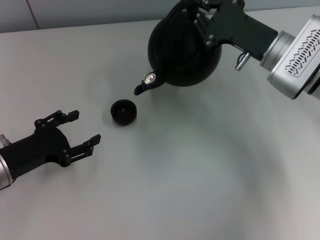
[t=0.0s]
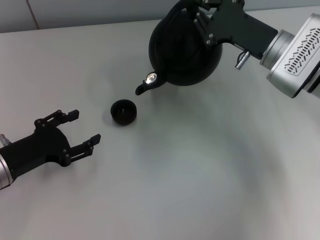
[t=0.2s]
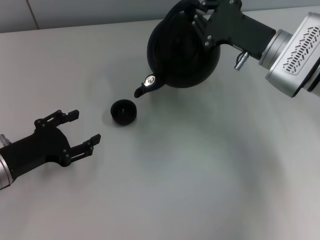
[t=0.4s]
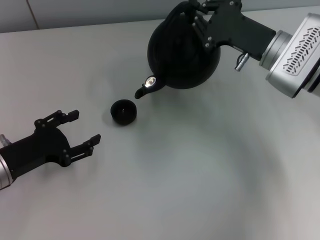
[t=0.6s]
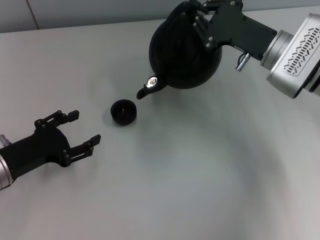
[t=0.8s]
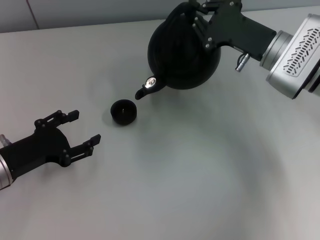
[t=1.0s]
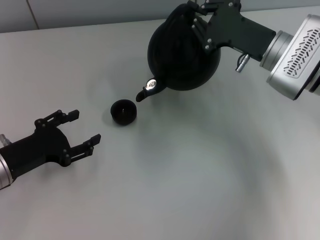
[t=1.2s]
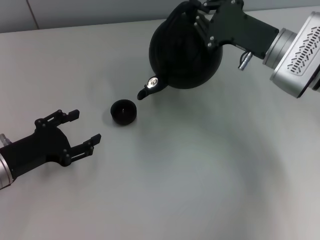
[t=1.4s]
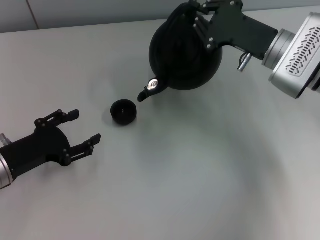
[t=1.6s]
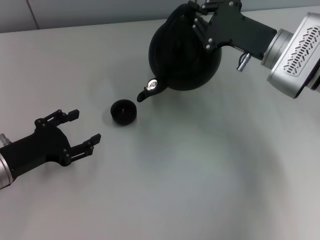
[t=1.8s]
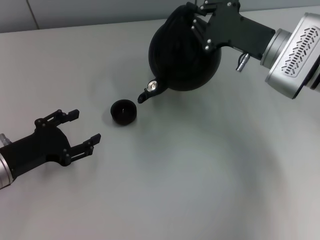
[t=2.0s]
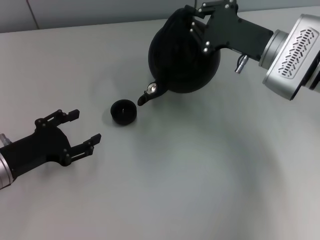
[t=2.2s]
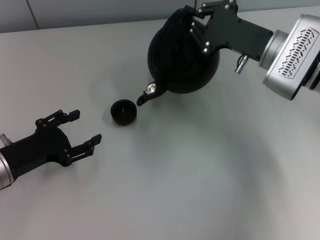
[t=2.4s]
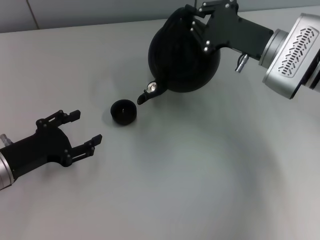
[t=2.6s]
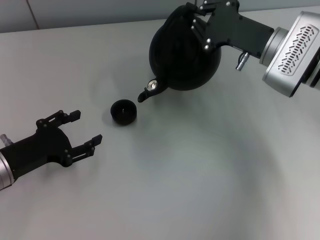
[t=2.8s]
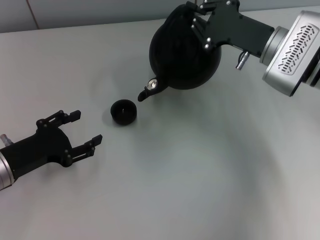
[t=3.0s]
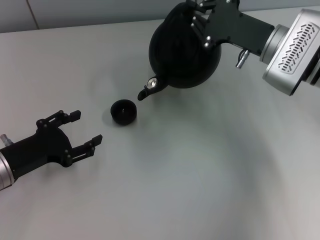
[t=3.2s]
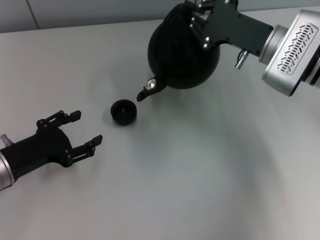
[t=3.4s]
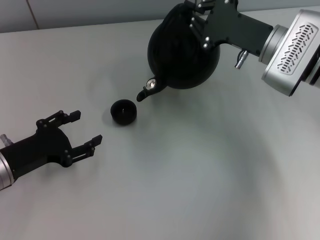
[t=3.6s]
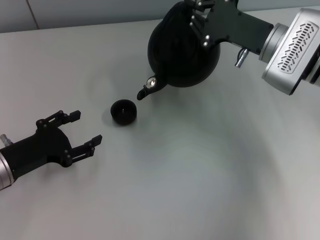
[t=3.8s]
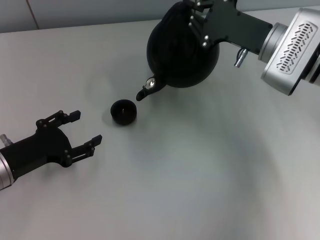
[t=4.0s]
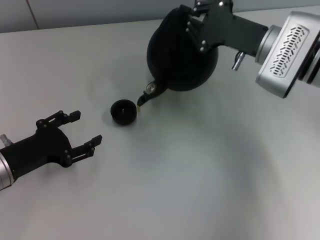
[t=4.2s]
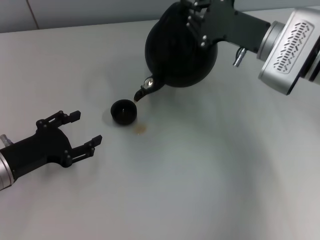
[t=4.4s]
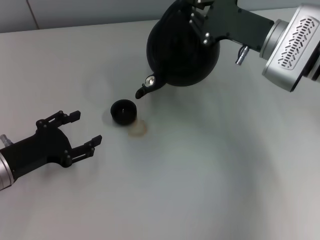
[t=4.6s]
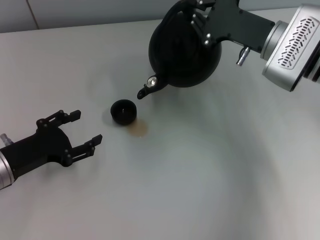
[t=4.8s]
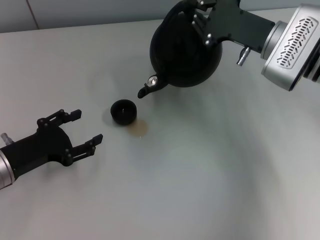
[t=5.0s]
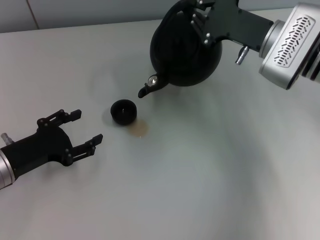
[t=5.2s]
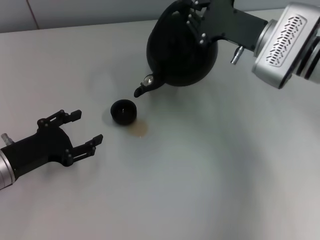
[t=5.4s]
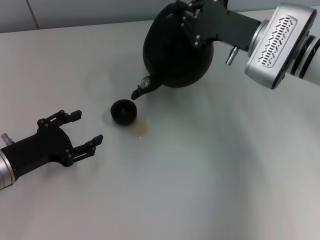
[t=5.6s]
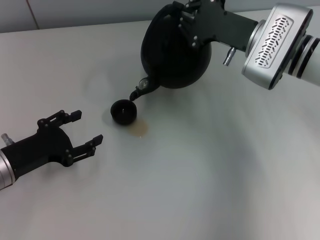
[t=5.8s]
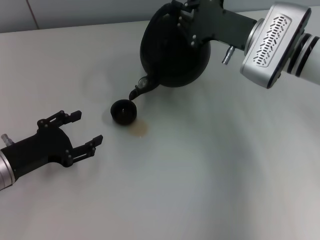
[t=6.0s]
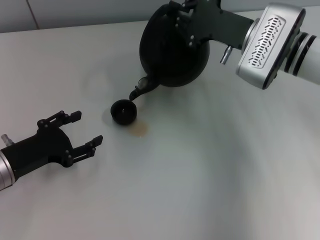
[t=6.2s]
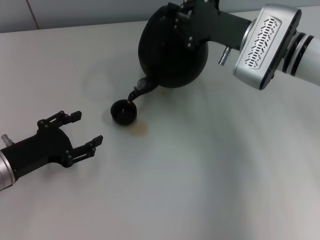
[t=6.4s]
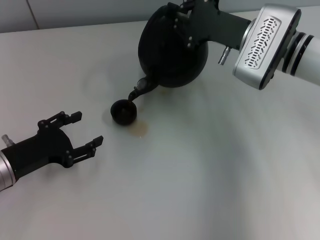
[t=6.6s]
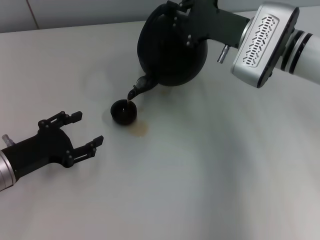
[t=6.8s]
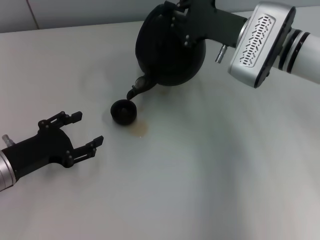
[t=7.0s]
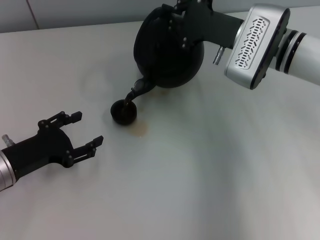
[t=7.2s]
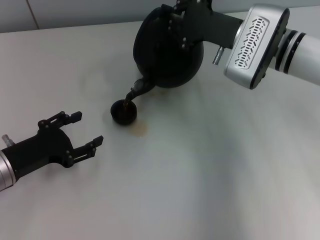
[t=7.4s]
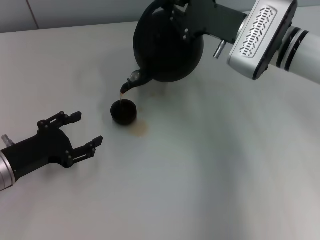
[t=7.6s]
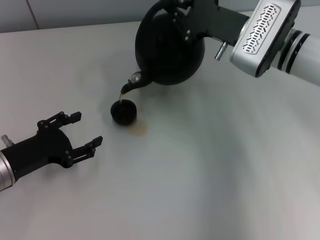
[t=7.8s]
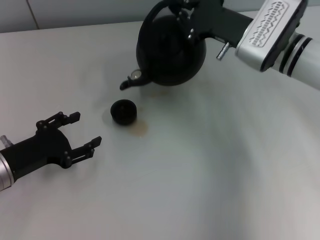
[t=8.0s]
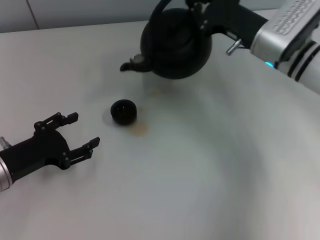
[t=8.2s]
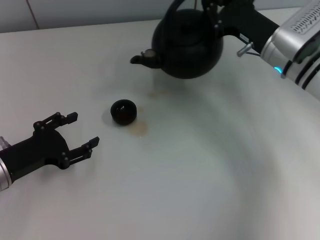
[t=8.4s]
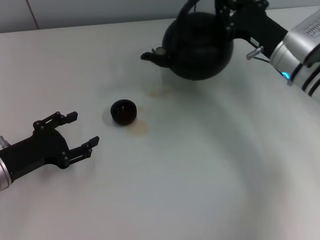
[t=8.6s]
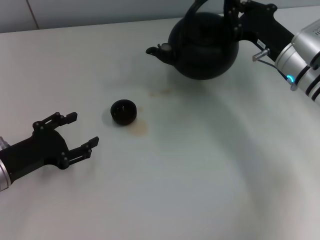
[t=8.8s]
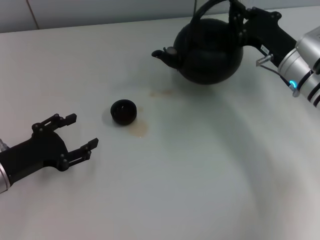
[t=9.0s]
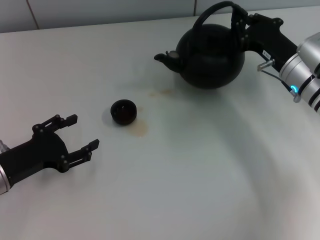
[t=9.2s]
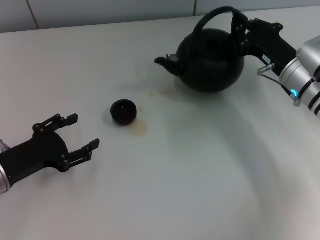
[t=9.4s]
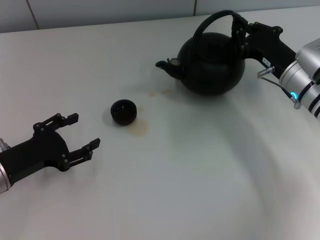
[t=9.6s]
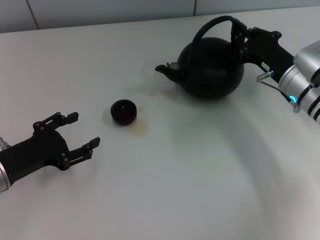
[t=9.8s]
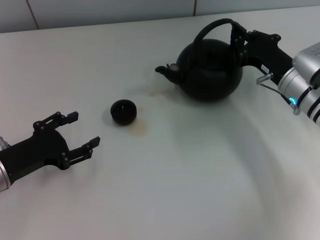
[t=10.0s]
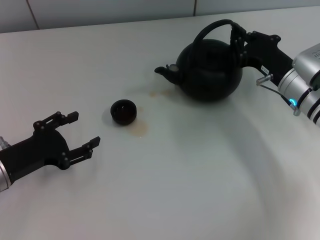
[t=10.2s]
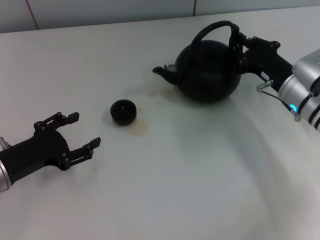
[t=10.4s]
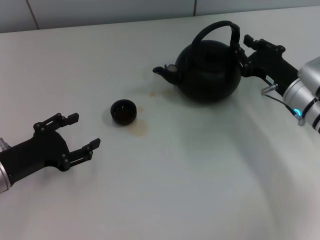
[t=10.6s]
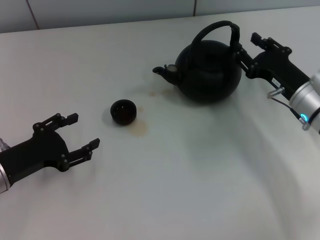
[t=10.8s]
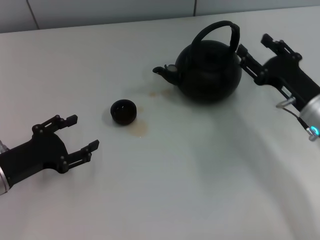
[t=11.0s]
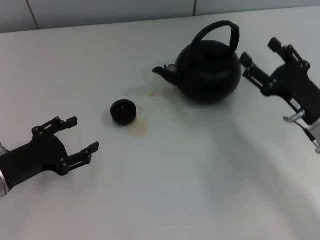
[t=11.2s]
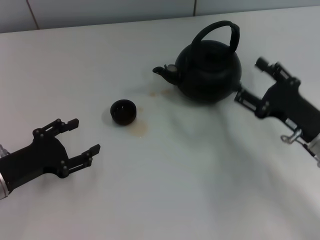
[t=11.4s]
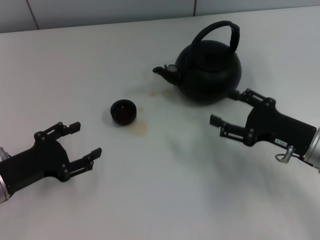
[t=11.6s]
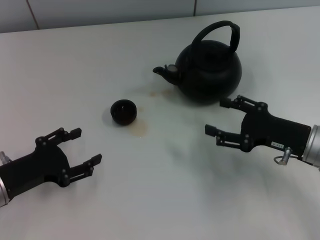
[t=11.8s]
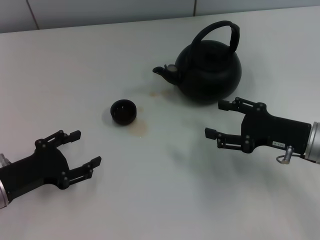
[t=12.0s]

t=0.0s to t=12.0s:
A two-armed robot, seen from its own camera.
Task of the whole recording: Grasp the handle of the teapot with one hand and pour tea into the teacup.
t=0.0s to t=1.6s: The two grippers keep their place.
t=1.6s to t=3.0s: Both grippers stay put.
t=3.0s to t=4.4s: Both grippers stay put.
t=4.4s to t=7.6s: There are only small adjustments of the grippers.
t=7.6s to t=9.0s: The right gripper shifts roughly 10 cm to the right and downward.
t=9.0s to t=10.4s: There are only small adjustments of the grippers.
t=10.4s to t=12.0s: The right gripper moves backward, roughly 5 cm, and opens its fingers.

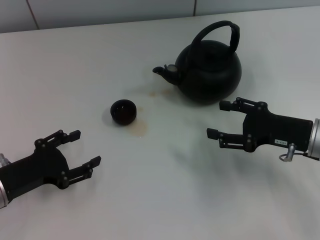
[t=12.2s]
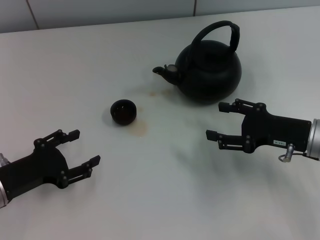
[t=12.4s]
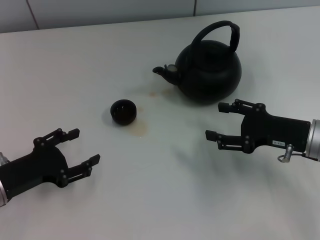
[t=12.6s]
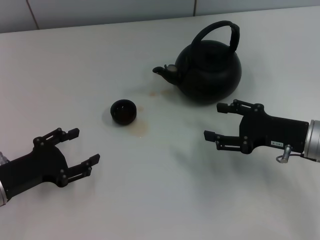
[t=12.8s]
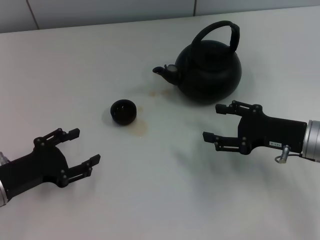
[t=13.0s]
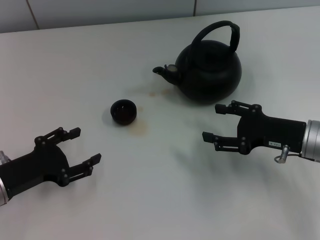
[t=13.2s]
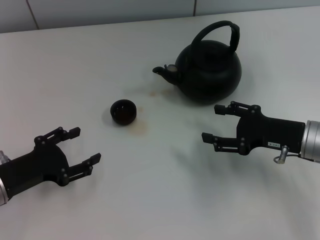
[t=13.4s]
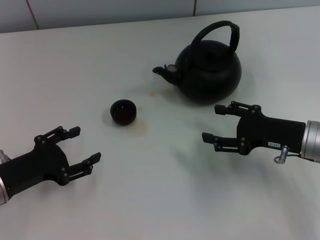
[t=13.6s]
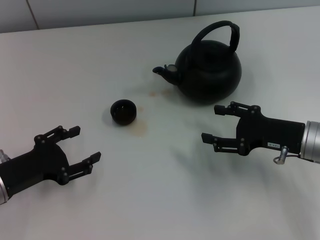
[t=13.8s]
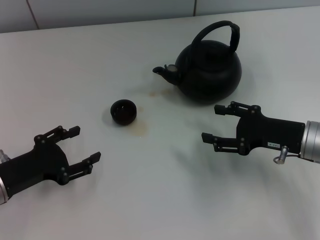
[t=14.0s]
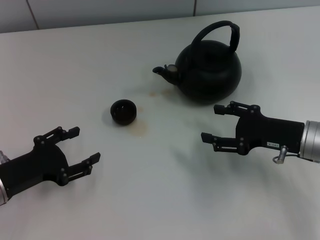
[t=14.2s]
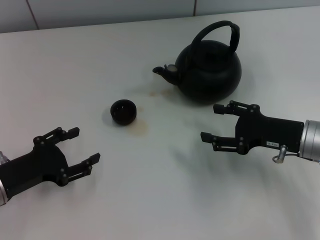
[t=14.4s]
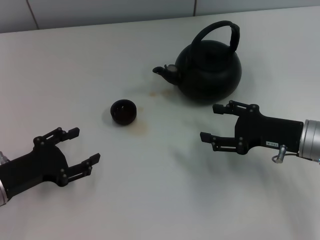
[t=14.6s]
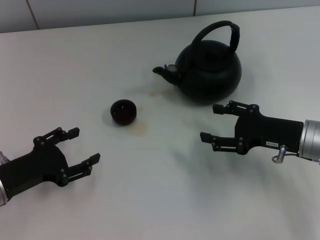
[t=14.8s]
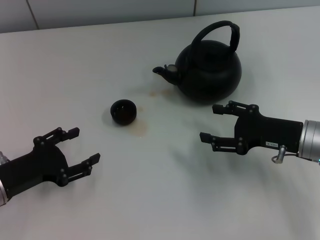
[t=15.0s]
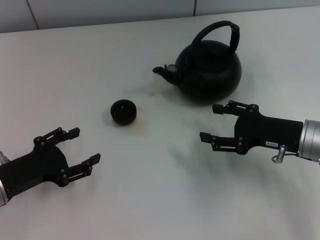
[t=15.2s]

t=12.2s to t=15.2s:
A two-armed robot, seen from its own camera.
Task of the whole recording: Grasp the handle of the teapot with one hand and pour tea into the teacup.
t=12.2s to t=15.2s: The two grippers keep their place.
